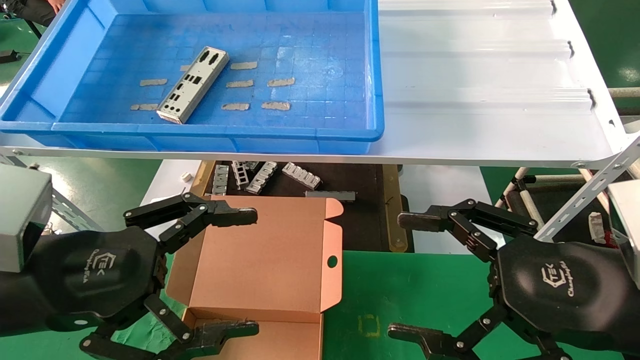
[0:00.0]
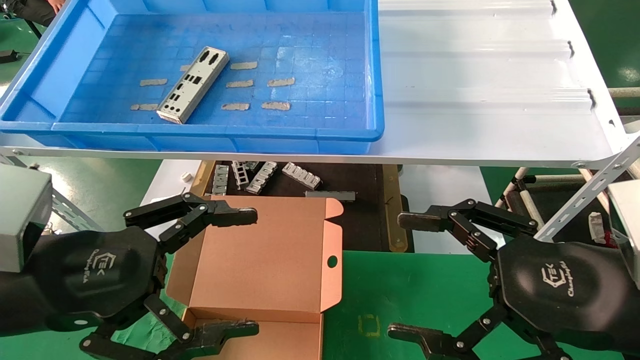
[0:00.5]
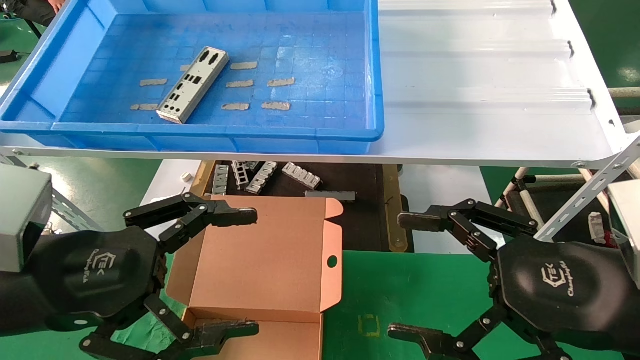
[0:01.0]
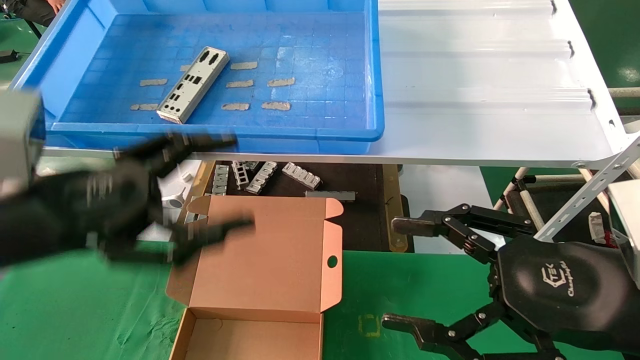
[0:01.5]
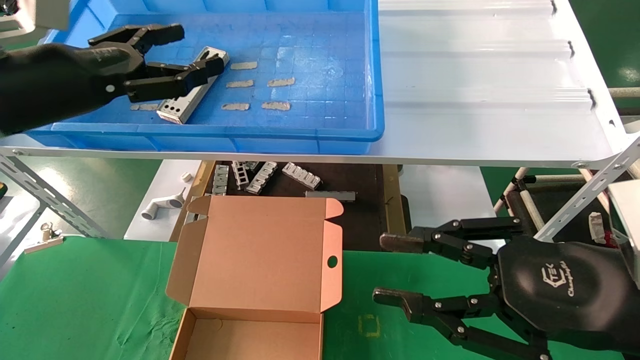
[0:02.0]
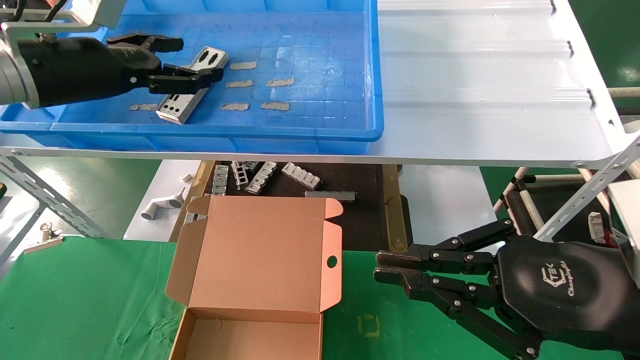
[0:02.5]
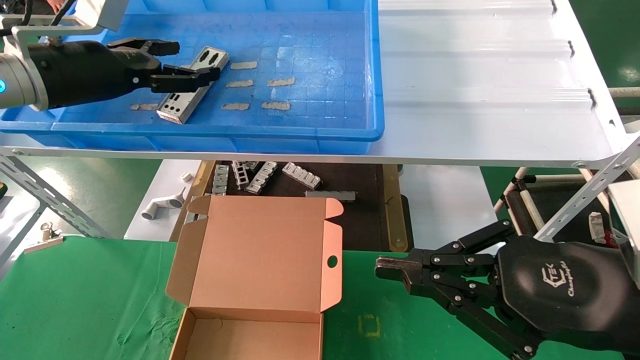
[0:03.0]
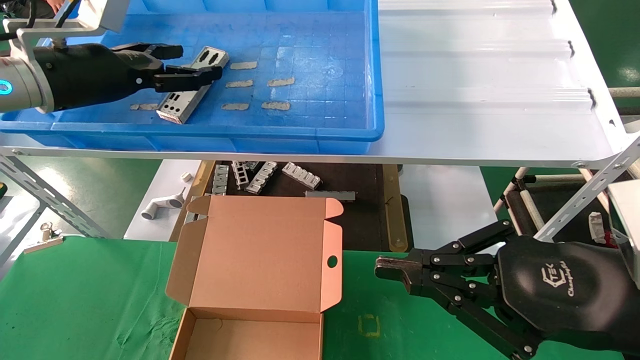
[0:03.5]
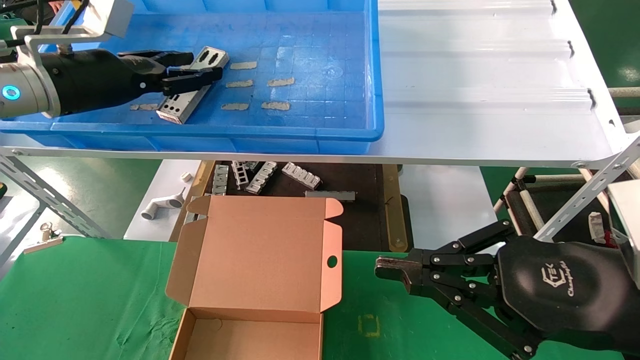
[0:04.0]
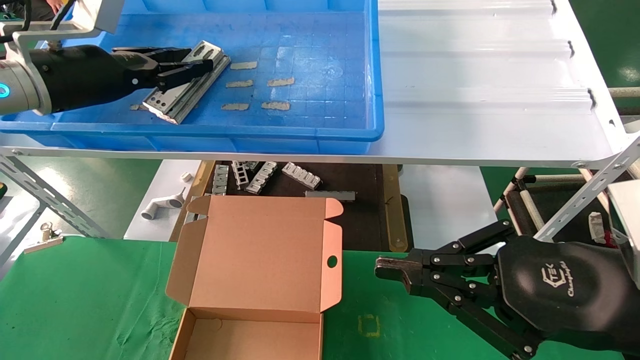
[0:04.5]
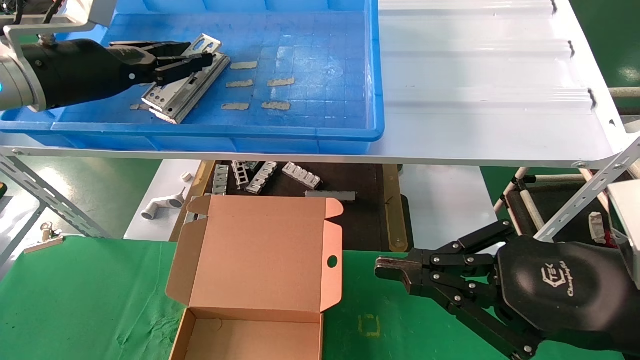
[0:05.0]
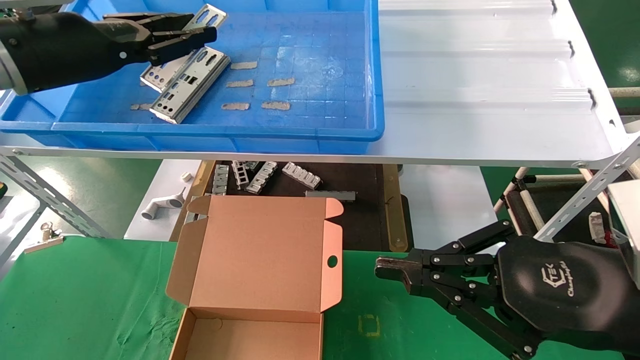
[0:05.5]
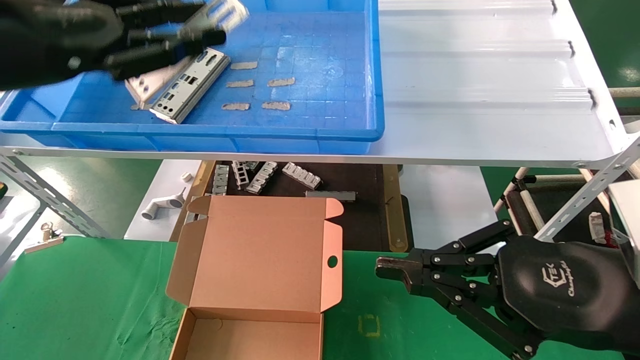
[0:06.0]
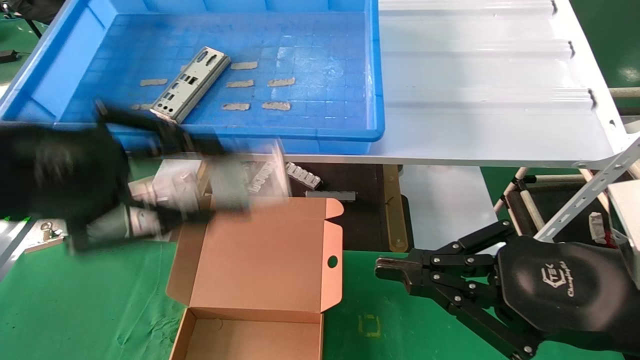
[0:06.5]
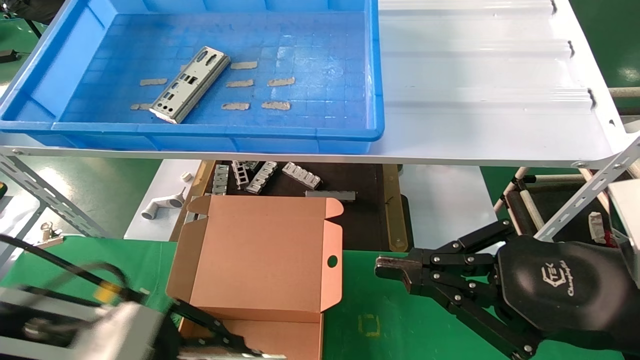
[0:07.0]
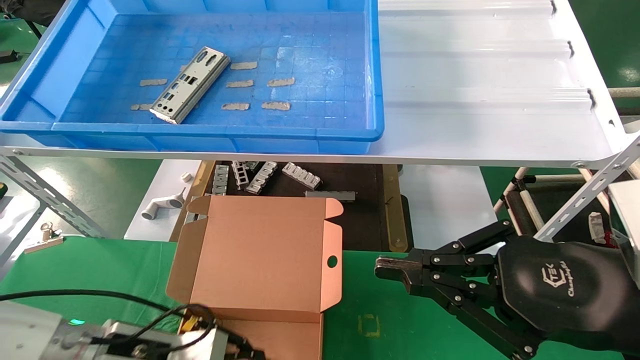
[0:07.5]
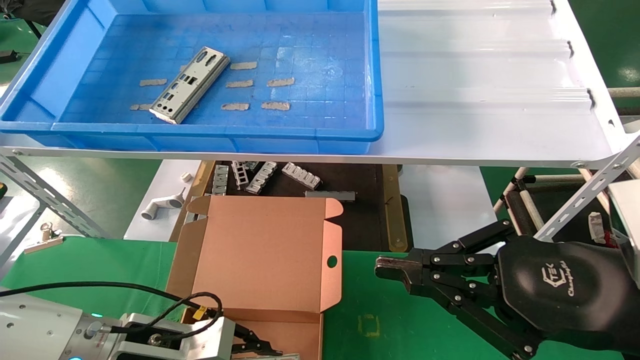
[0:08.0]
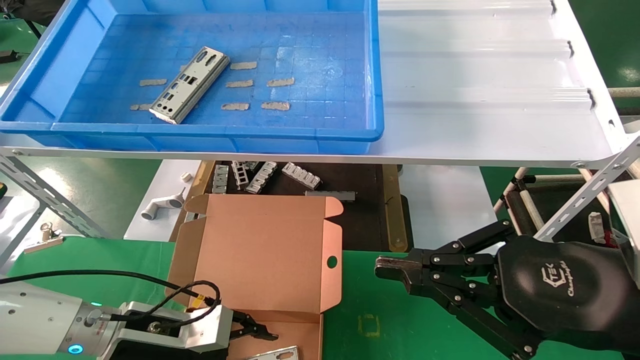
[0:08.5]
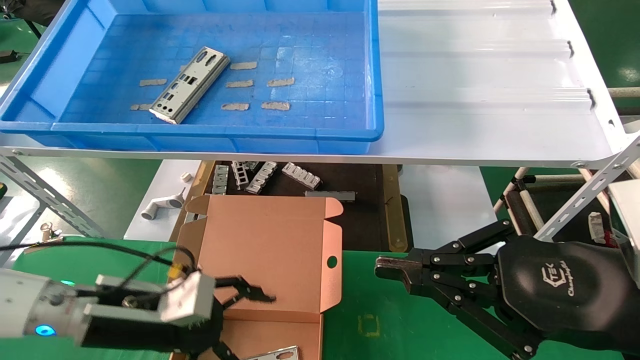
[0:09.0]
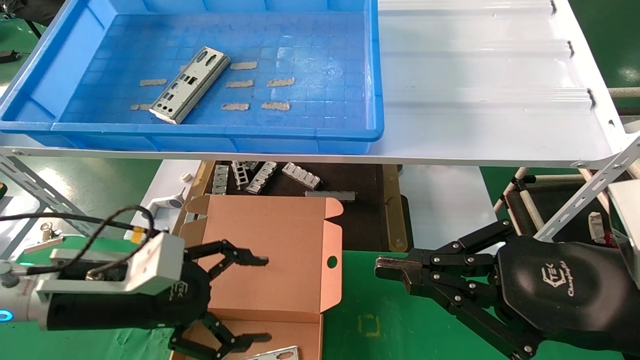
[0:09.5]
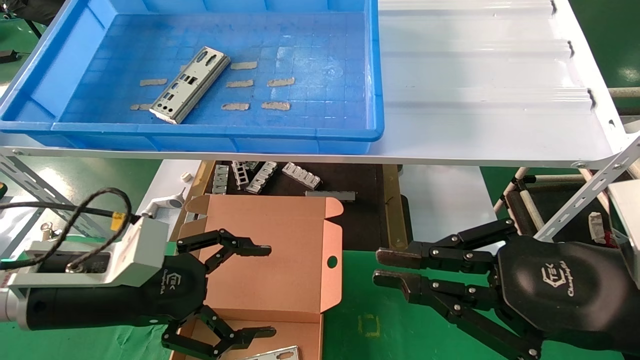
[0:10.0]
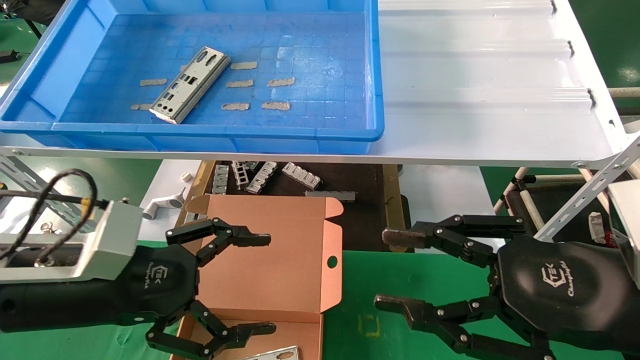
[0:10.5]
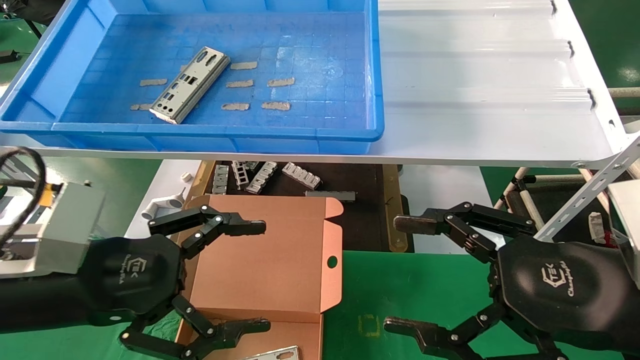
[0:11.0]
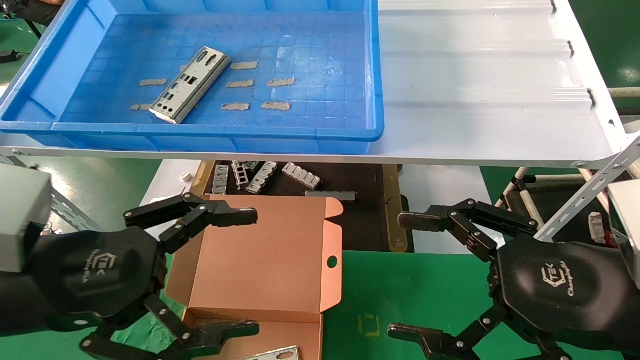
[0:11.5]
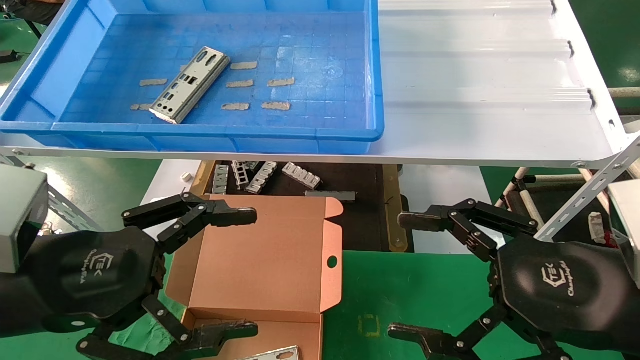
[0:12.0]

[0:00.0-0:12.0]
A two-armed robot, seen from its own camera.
Task of the whole recording: pick up the parts on the tray and put them in the cardboard box.
Step, 0:02.0 to 0:04.0: Pick up the IO bracket from the container box.
Step, 0:04.5 to 0:08.0: Place the IO bracket into the ingredient slot.
0:00.0 to 0:02.0: The right gripper closes. The left gripper is displaced forward and upward by approximately 15 cm.
0:02.0 to 0:04.0: The right gripper closes up. The left gripper heads forward, covering approximately 5 cm, and closes up.
0:04.0 to 0:06.0: The left gripper is displaced backward by some 15 cm, and closes.
0:06.0 to 0:08.0: The left gripper travels downward by roughly 35 cm.
0:08.0 to 0:10.0: The left gripper shifts some 10 cm upward, and opens.
0:10.0 to 0:12.0: The right gripper opens. Meanwhile the left gripper is displaced backward and upward by some 10 cm.

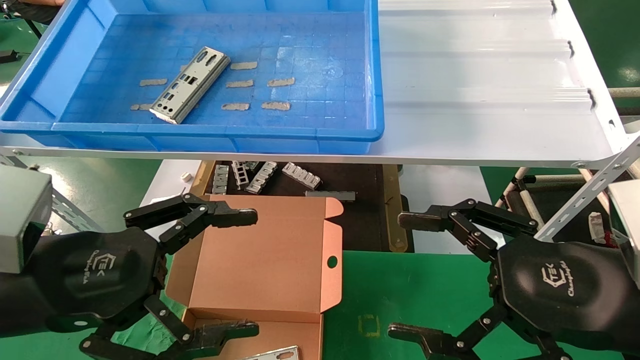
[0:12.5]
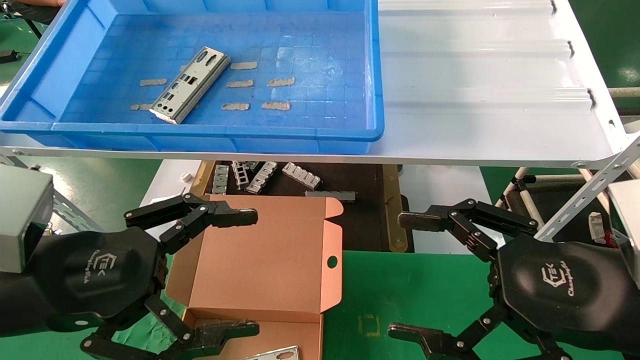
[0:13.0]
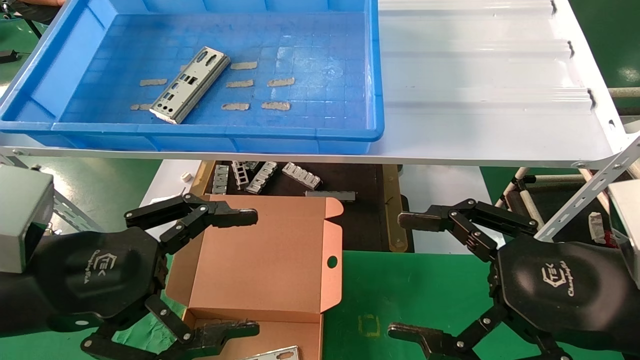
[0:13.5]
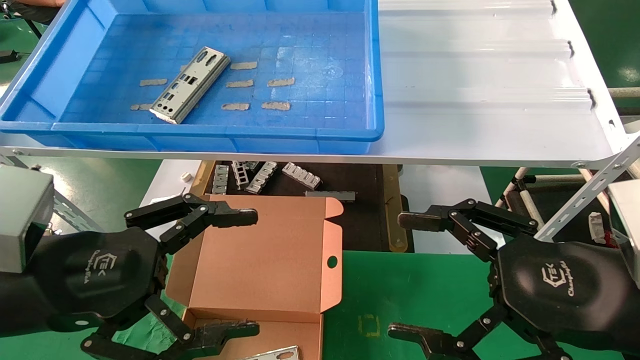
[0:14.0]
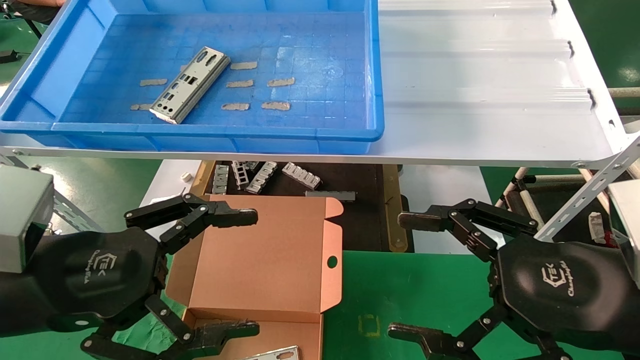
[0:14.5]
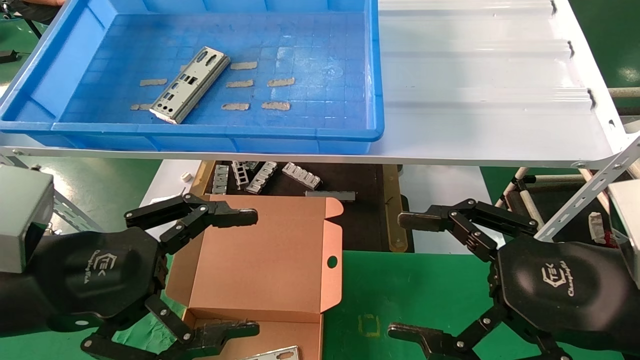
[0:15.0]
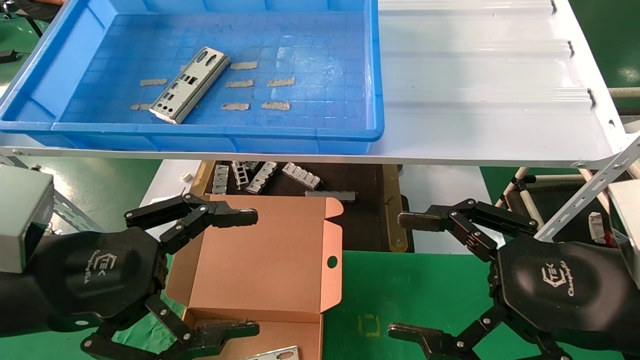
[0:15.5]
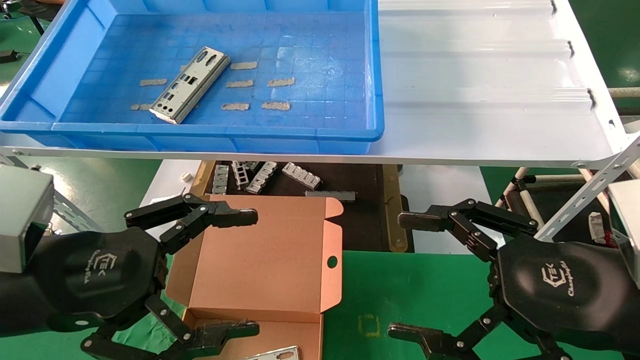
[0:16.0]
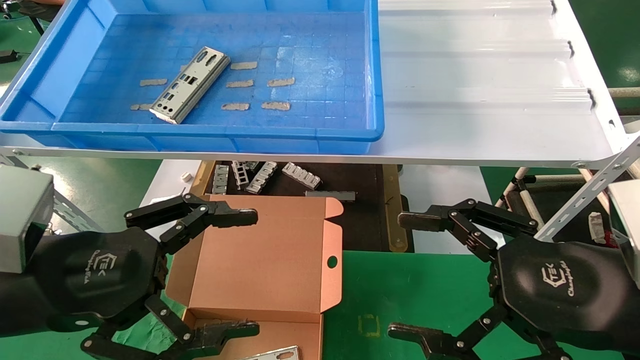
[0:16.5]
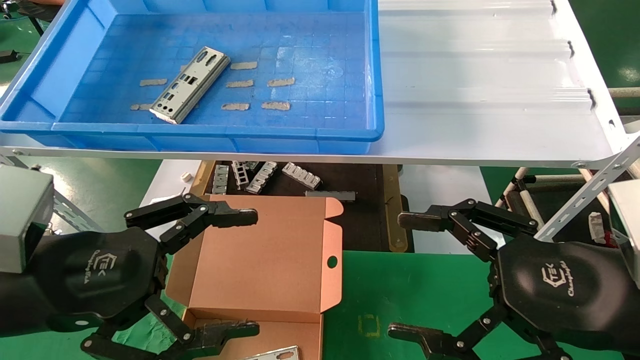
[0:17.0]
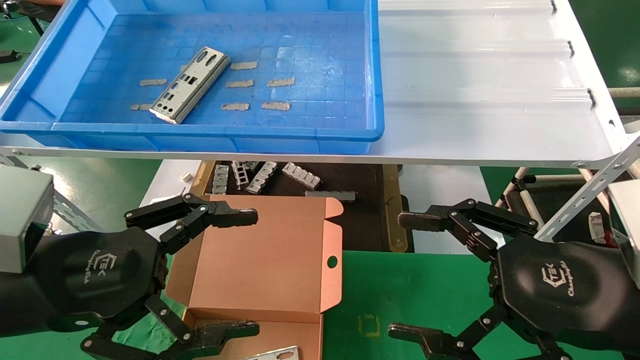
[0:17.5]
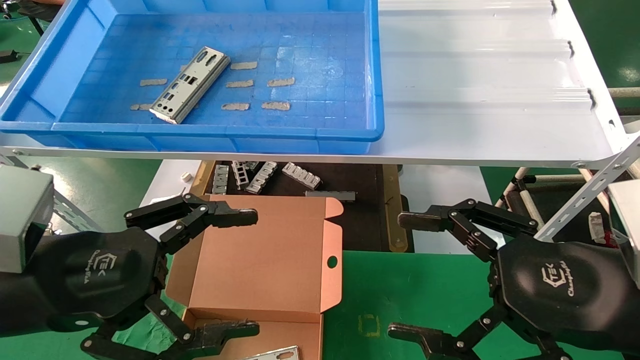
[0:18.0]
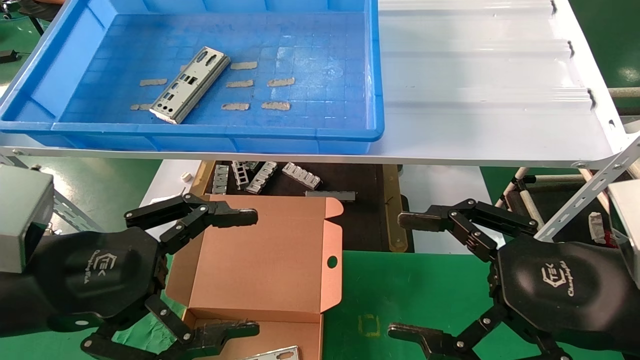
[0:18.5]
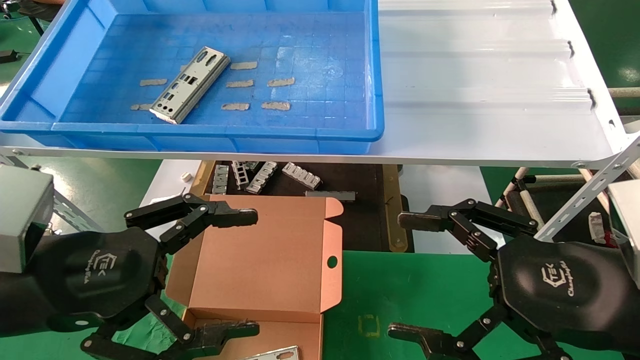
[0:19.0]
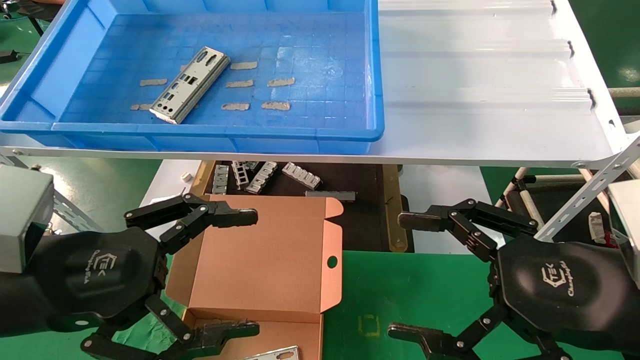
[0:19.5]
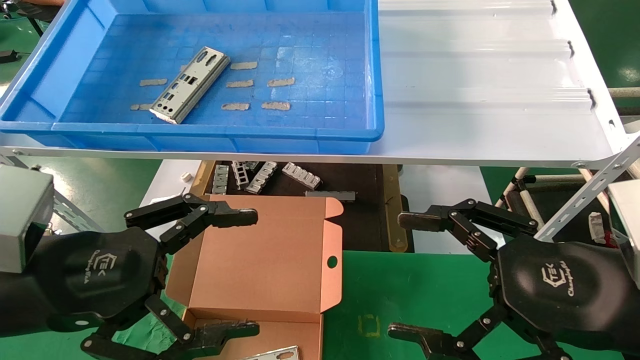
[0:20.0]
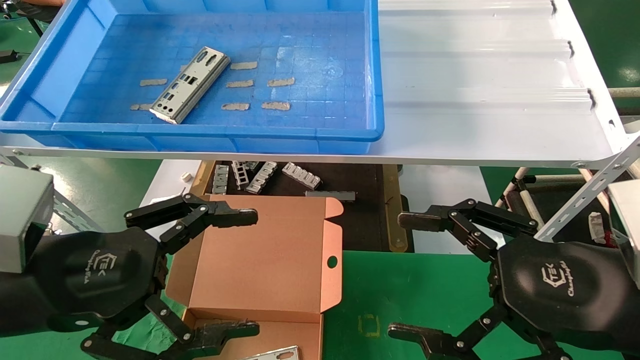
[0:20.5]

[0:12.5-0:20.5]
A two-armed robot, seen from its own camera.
Task of the whole recording: pick up the parts on the tray and put them in the cardboard box.
0:12.5 to 0:20.5: The two grippers keep their place.
